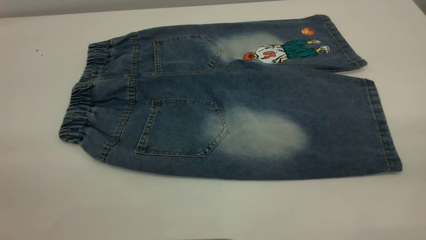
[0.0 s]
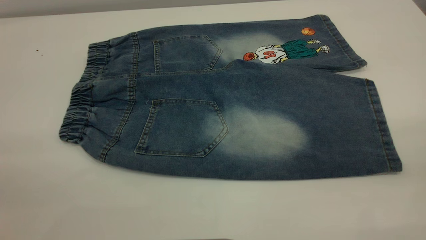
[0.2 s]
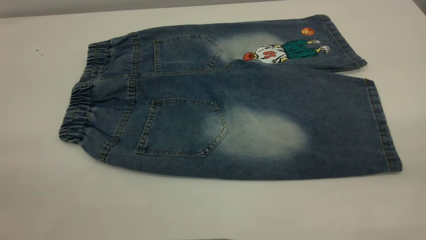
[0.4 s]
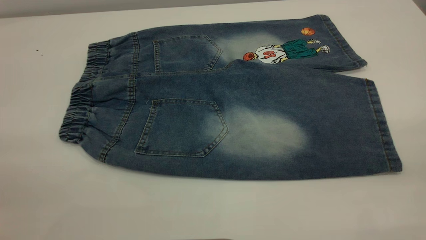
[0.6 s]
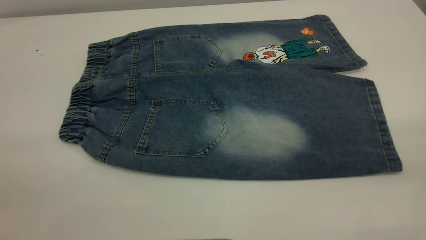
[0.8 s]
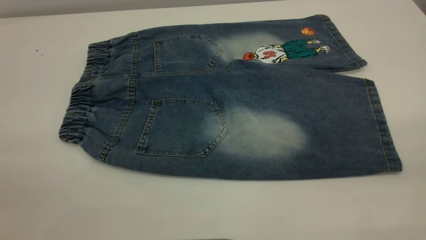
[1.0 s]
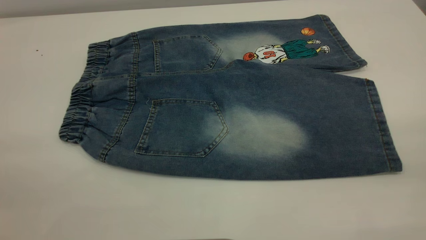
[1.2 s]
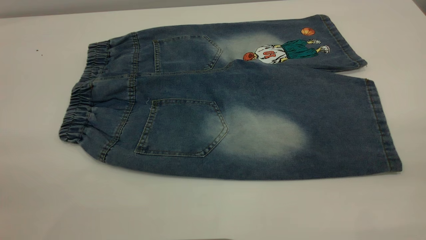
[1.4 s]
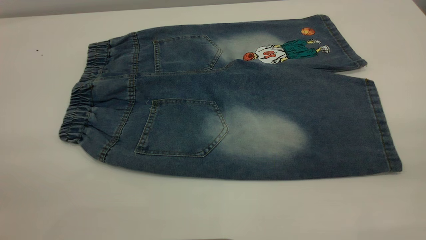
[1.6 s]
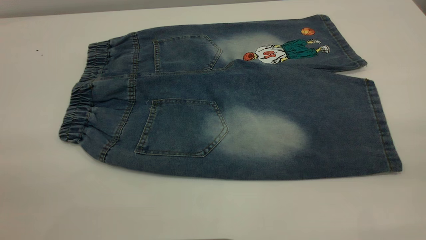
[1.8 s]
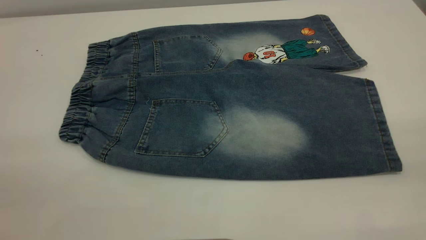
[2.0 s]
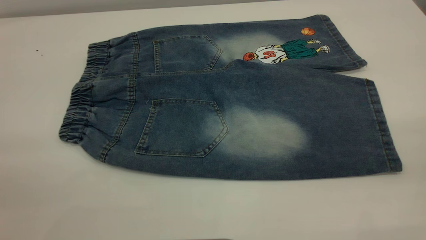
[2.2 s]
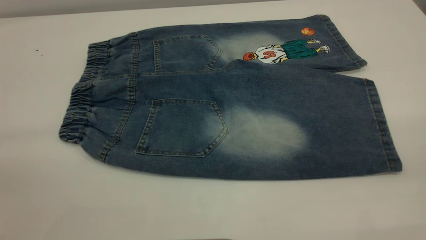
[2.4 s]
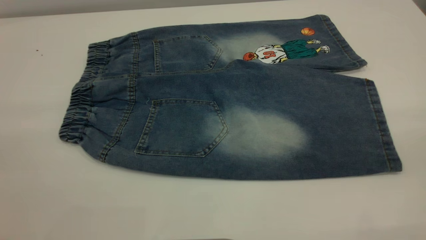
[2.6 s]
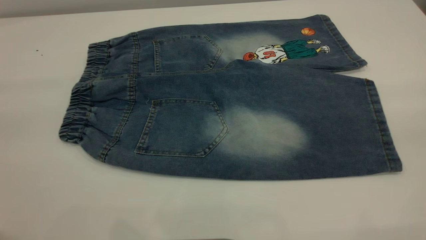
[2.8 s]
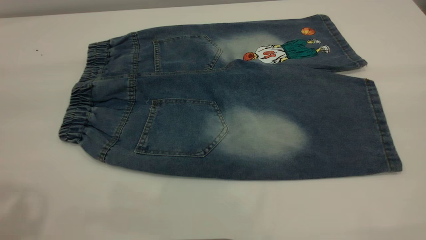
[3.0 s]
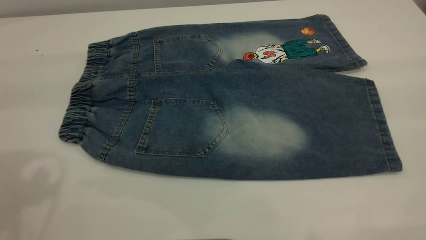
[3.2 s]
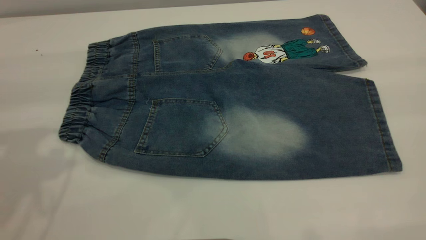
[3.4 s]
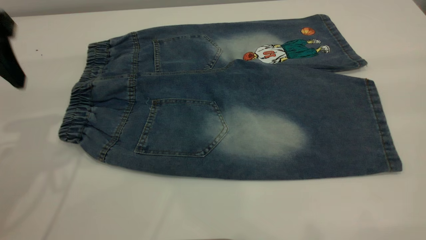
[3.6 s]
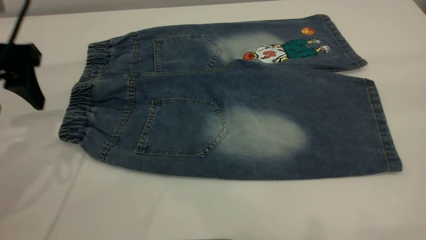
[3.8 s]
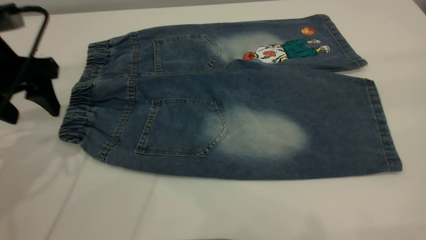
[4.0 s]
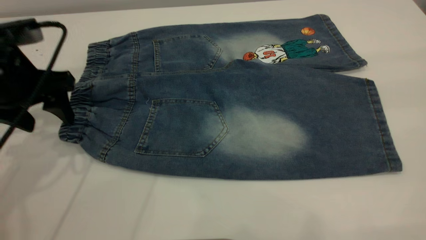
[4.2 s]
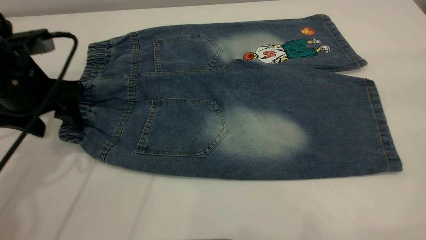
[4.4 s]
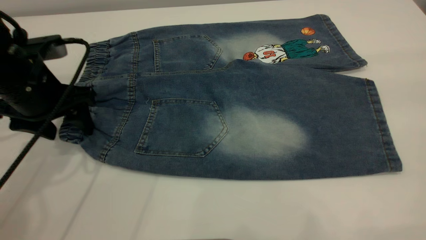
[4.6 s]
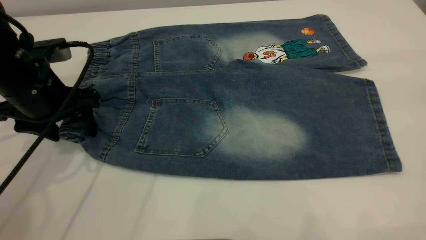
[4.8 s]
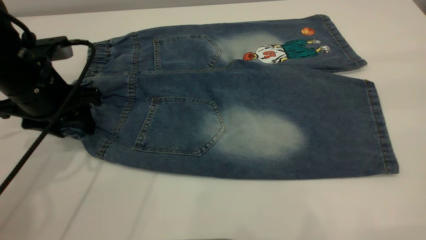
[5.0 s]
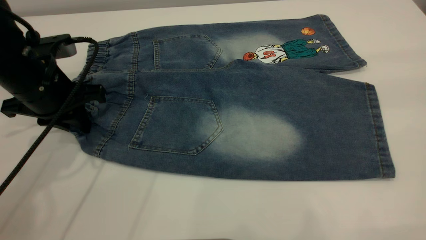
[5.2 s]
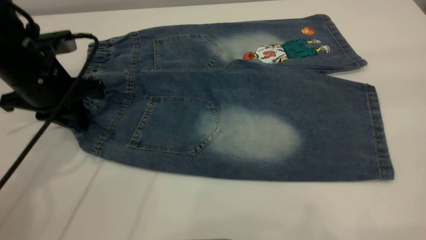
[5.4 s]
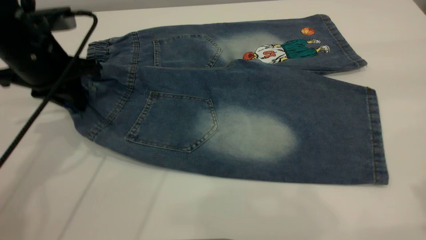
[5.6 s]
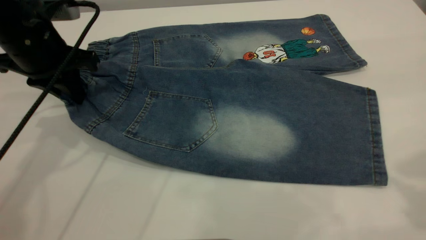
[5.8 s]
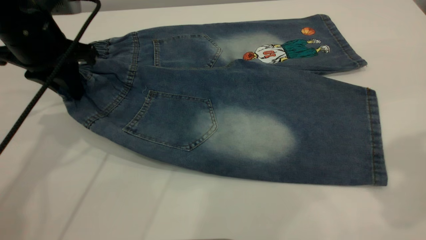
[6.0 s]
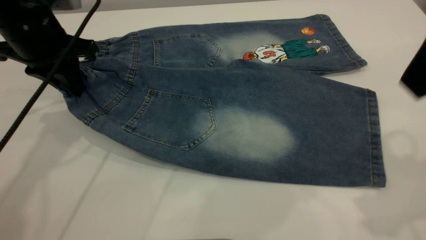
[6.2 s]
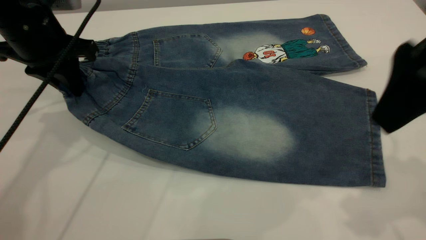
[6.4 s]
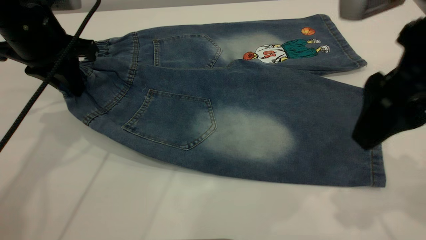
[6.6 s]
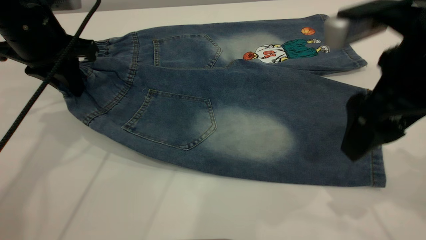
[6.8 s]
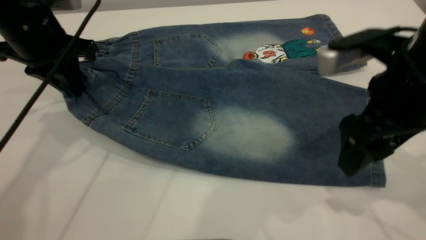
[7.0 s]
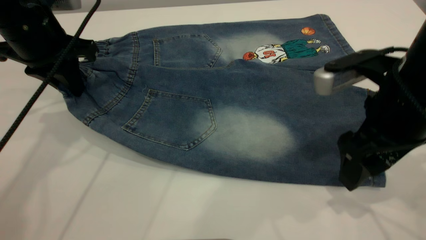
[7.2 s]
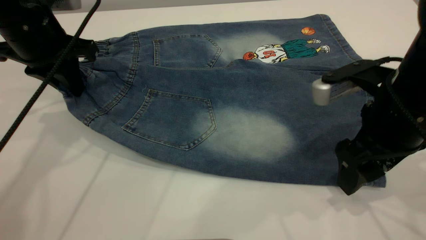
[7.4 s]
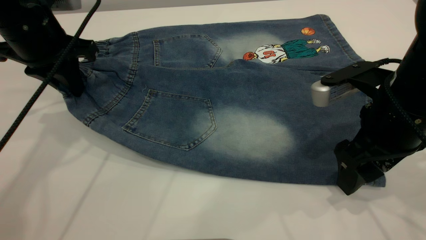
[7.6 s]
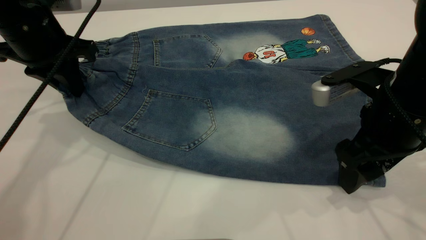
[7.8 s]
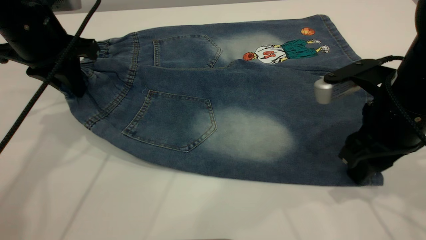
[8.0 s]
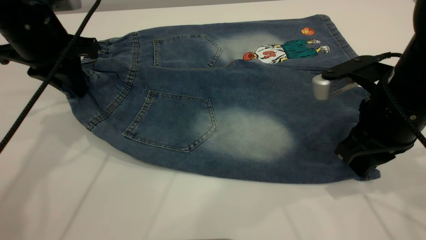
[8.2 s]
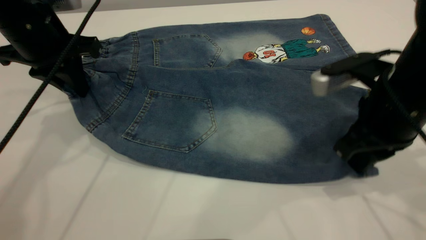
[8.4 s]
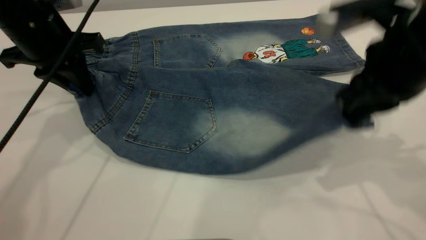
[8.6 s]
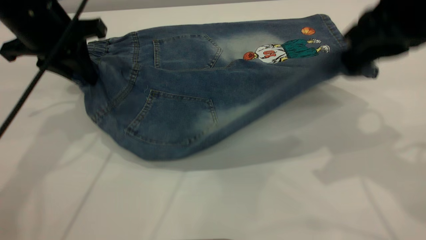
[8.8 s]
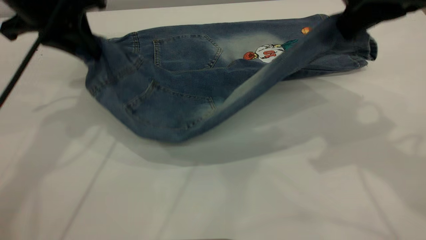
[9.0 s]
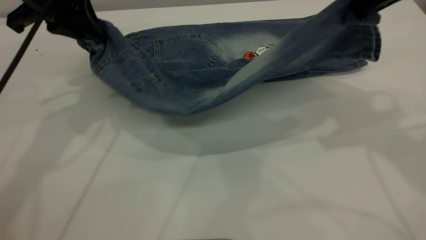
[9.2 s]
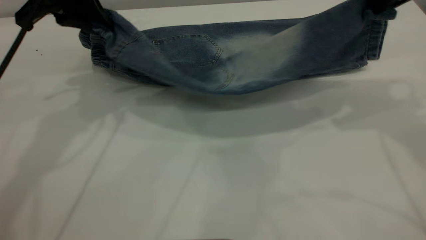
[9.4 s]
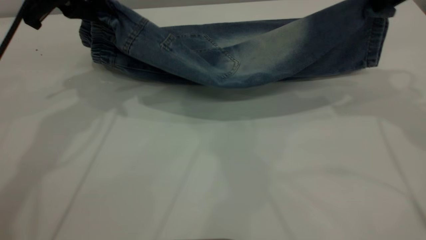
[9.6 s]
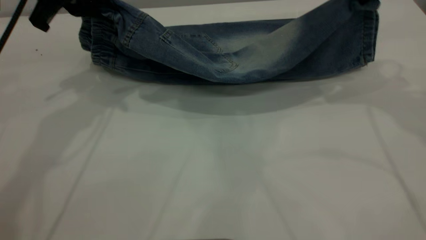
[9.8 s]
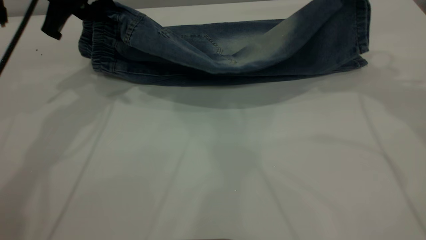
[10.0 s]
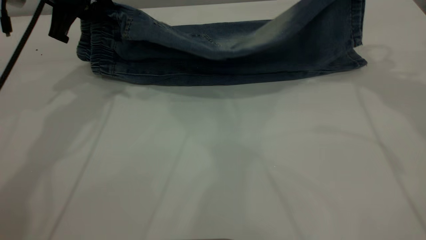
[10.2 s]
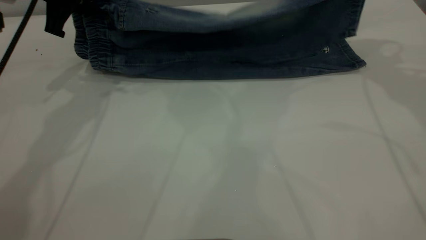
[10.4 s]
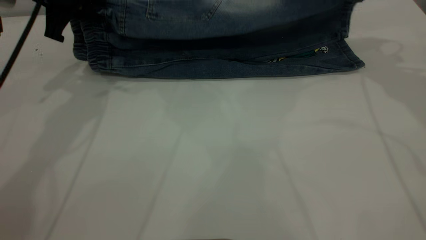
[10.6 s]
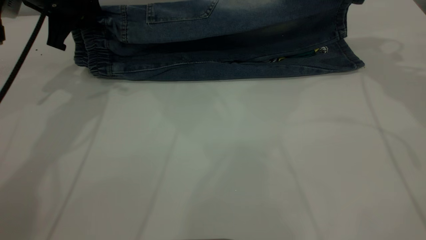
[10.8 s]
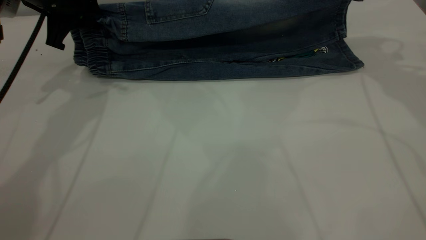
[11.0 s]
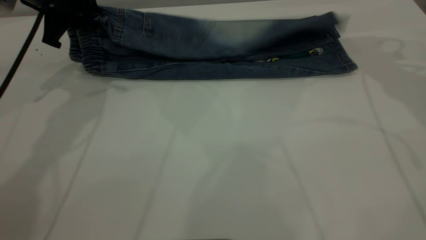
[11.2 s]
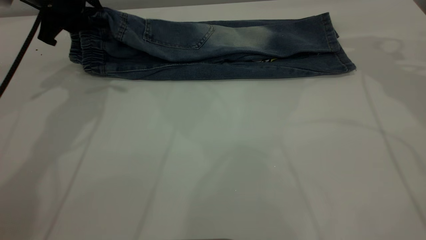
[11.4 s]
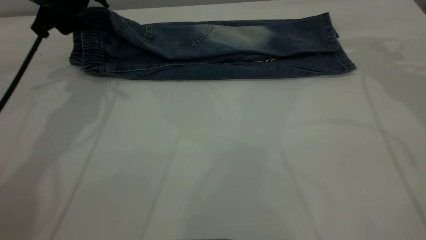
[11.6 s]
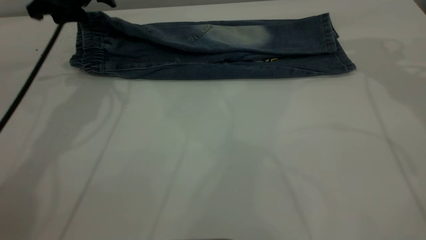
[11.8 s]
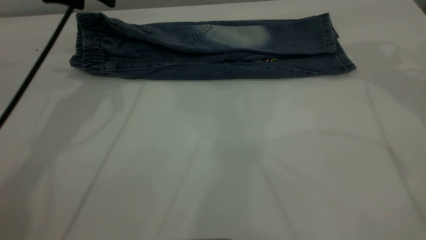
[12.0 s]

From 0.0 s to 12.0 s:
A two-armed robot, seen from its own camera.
Step, from 0.0 s to 12.0 s: Fold the bottom of the pants upward.
From 0.0 s to 1.6 s: Both grippers stay put.
From 3.0 s to 4.4 s: The left gripper travels downward and forward by about 30 cm.
From 4.4 s to 6.0 s: The left gripper shifts by about 5 cm, and closes up. Meanwhile the right gripper shifts approximately 15 cm forward and downward.
From 6.0 s to 7.6 s: The right gripper heads downward, covering roughly 20 cm.
From 7.6 s to 9.0 s: The right gripper heads upward, covering about 15 cm, and closes up.
From 9.0 s to 10.4 s: The left gripper moves approximately 5 cm, while the right gripper moves forward and to the right, approximately 15 cm.
From 10.4 s to 12.0 s: The right gripper opens, while the left gripper opens up.

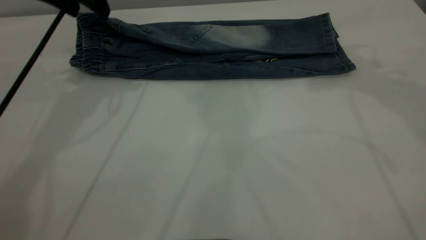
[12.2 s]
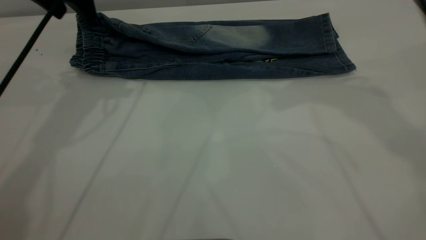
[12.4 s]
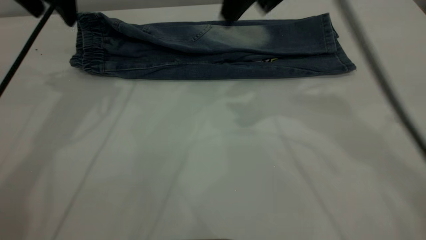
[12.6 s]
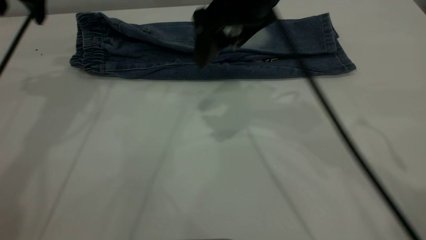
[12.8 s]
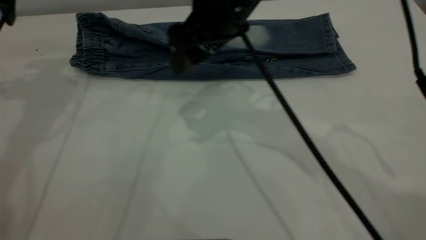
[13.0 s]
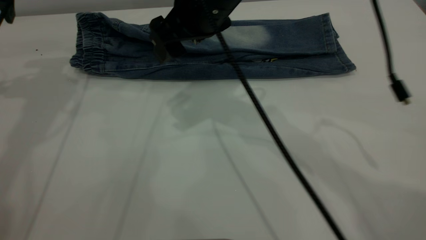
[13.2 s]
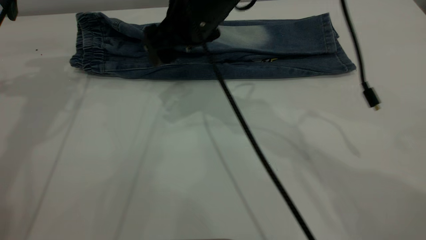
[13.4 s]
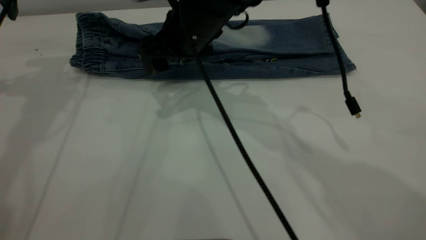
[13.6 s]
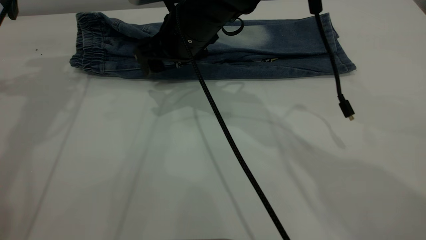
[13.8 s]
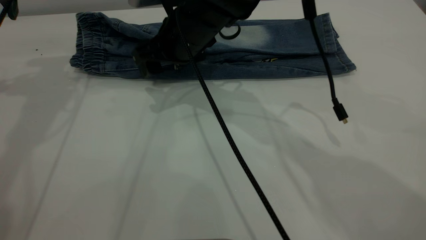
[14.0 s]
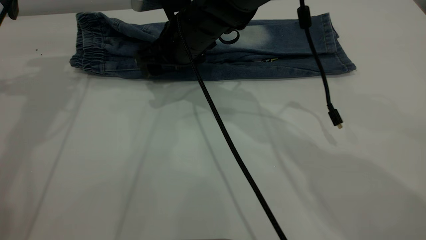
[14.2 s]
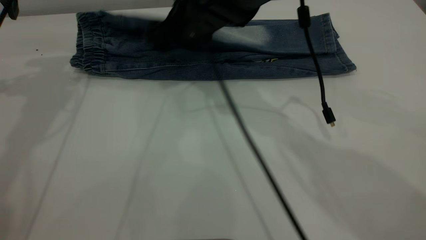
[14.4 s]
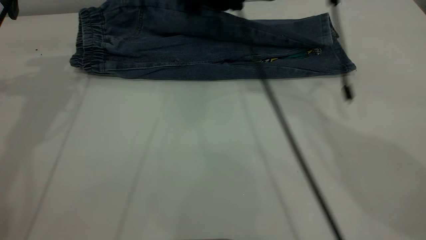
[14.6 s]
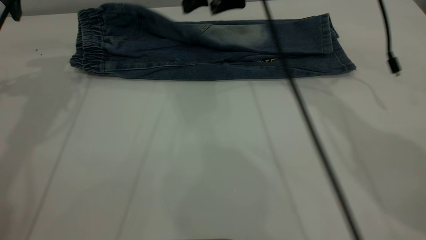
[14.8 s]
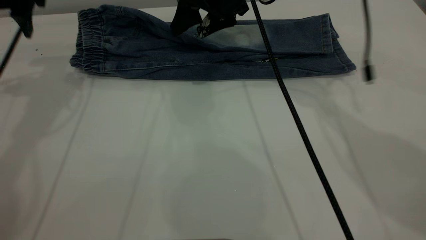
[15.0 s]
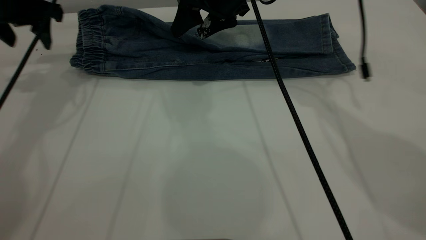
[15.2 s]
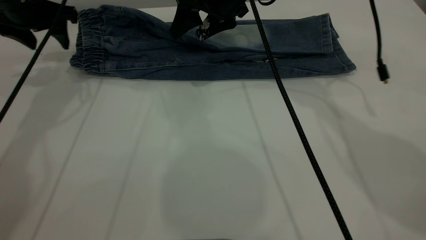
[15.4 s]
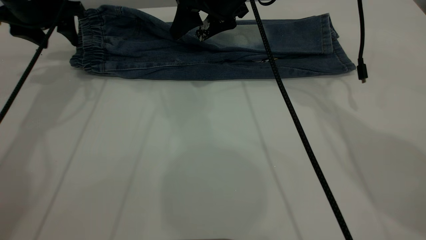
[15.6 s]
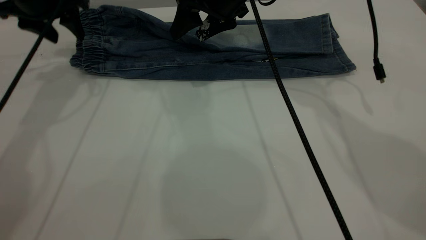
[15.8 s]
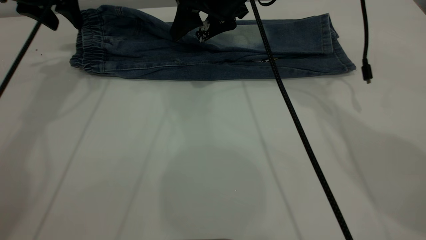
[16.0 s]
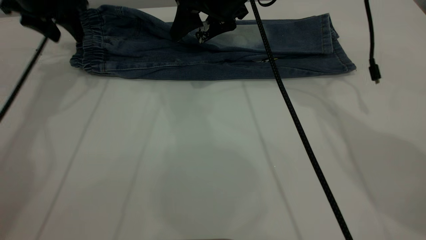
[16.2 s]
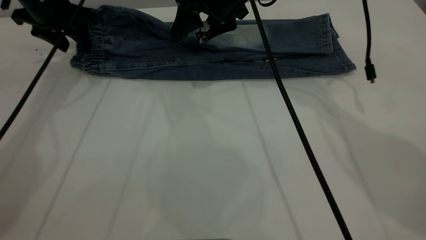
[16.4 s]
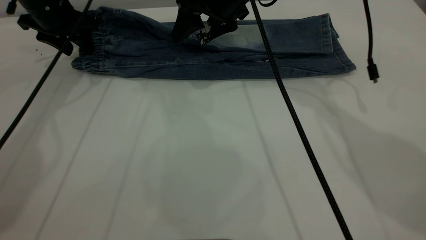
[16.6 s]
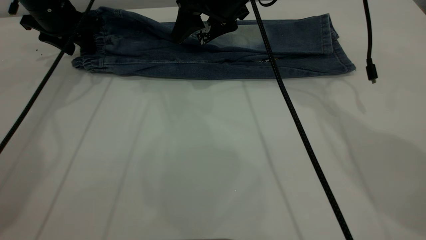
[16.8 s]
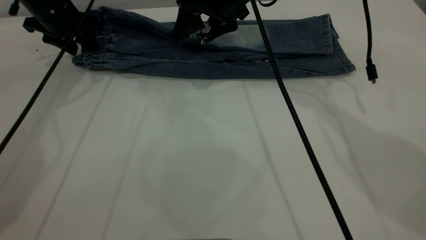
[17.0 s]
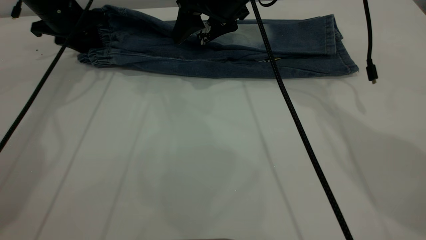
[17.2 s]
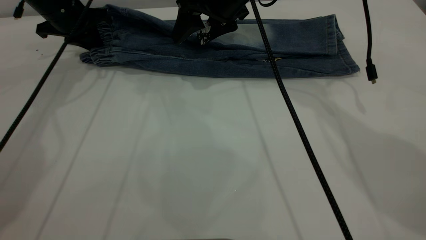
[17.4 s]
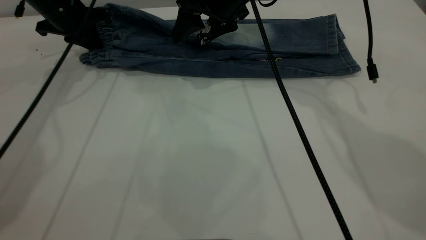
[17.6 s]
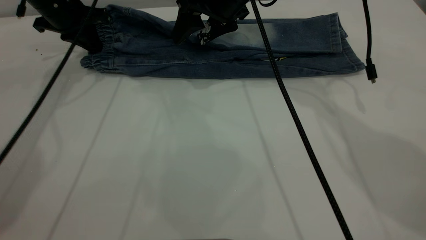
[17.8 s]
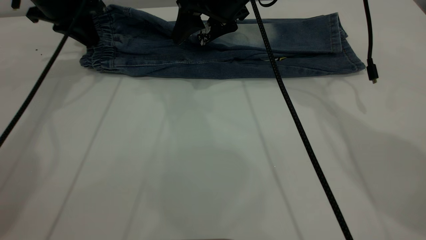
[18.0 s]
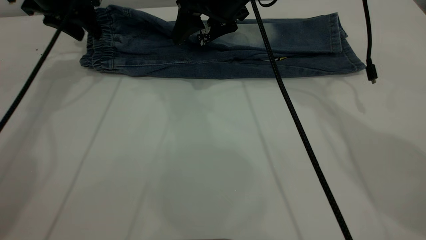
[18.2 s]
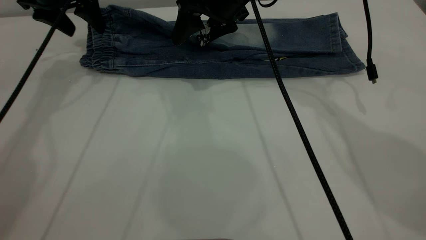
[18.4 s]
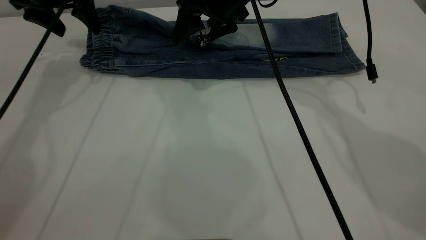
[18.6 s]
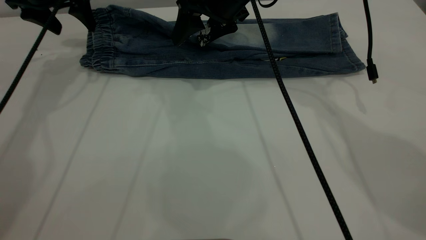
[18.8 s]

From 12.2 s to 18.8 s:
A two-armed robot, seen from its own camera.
From 12.2 s to 13.8 s: The right gripper travels to the left and downward by some 30 cm. The left gripper shifts about 10 cm to the left.
From 13.8 s to 15.4 s: The right gripper heads to the right and forward, covering about 10 cm. Meanwhile the left gripper travels downward by about 10 cm.
From 15.4 s to 17.2 s: The left gripper shifts about 5 cm downward, and closes.
From 17.2 s to 18.8 s: The left gripper shifts some 5 cm upward, and opens its fingers.
